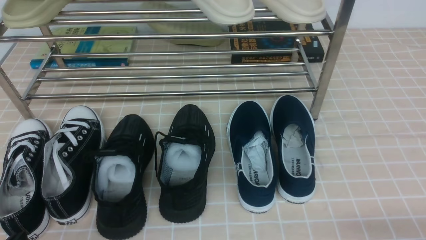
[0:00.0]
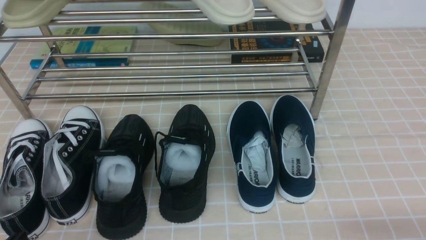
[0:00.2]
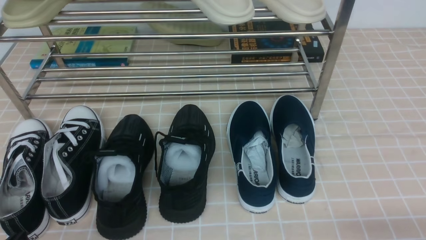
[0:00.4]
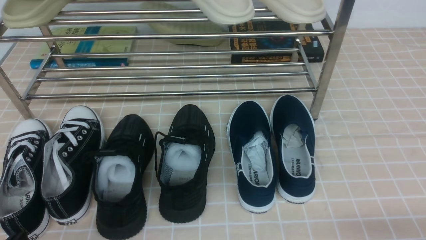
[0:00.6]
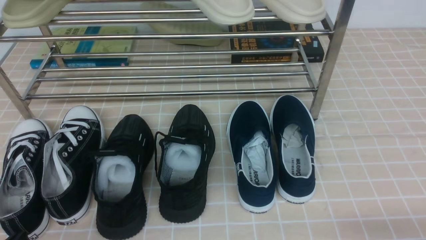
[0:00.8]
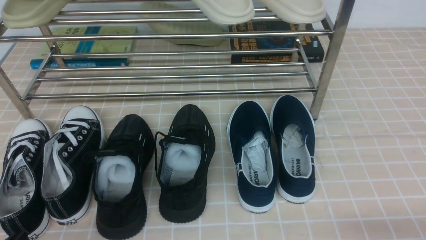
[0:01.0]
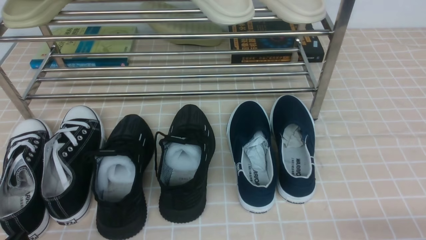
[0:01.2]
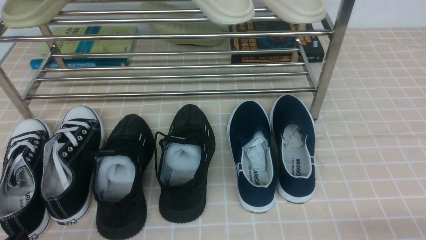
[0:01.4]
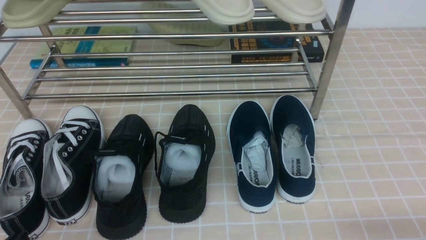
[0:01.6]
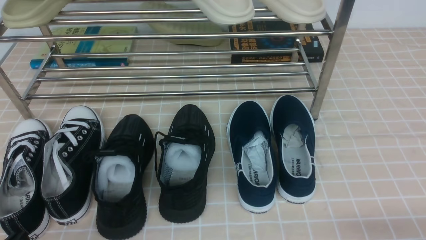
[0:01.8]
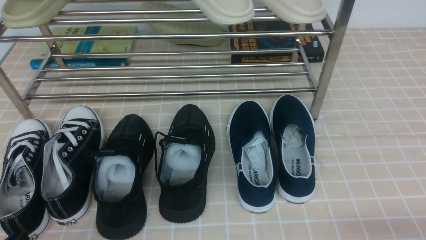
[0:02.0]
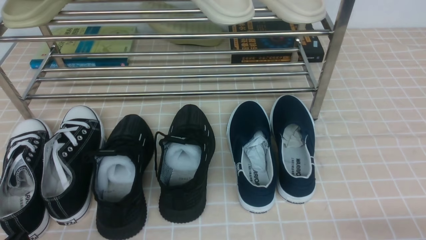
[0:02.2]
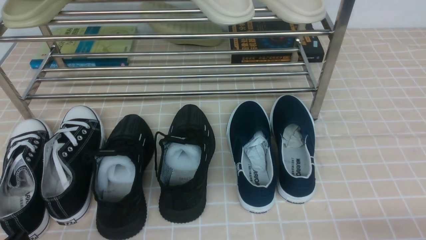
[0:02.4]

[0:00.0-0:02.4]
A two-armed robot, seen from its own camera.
0:00.0 to 0:02.4: The two grippers keep their place.

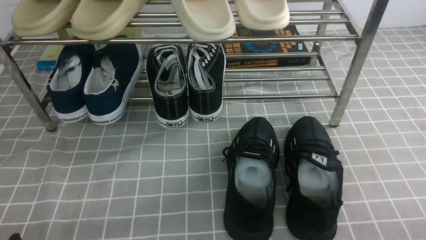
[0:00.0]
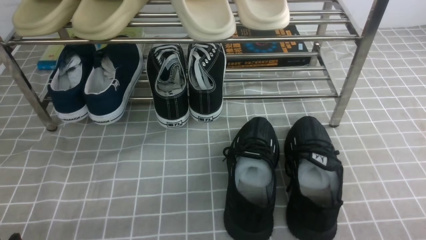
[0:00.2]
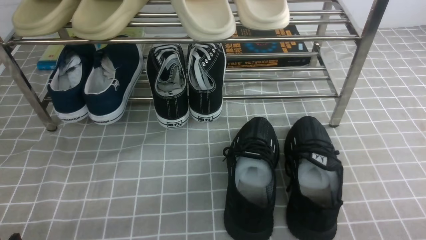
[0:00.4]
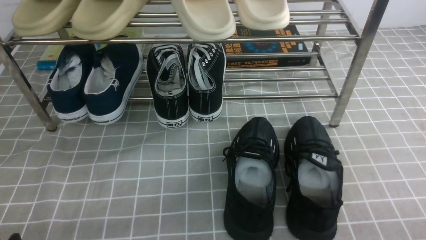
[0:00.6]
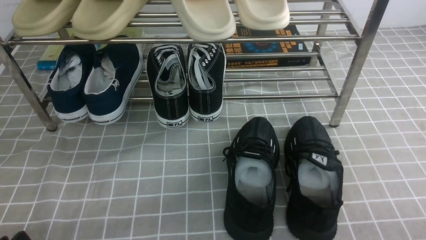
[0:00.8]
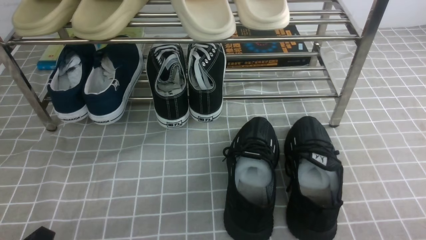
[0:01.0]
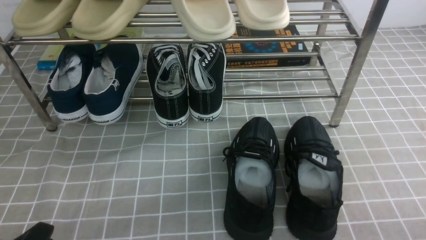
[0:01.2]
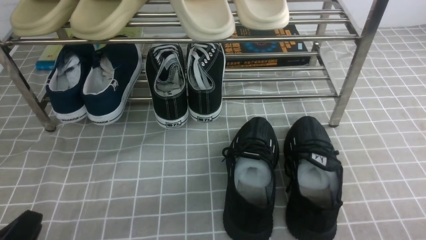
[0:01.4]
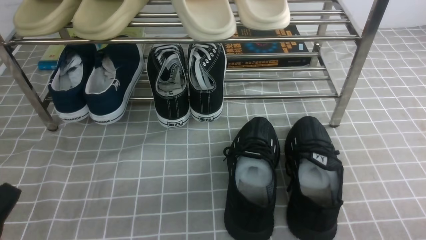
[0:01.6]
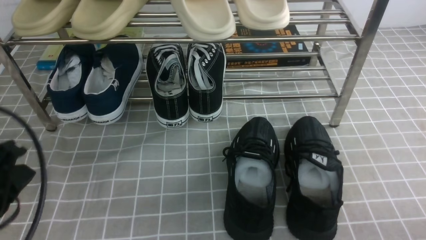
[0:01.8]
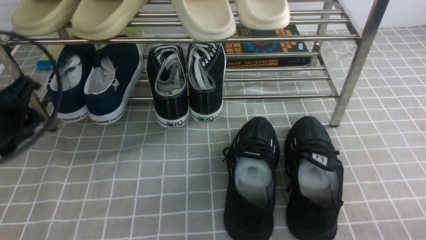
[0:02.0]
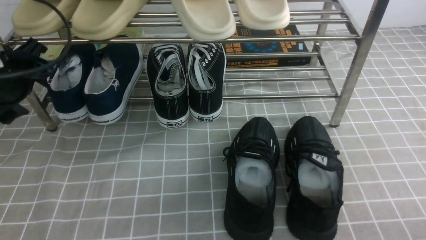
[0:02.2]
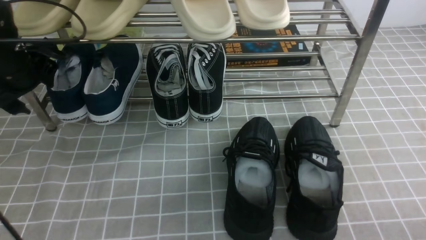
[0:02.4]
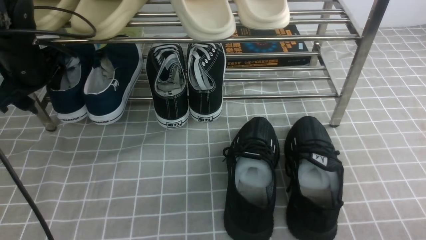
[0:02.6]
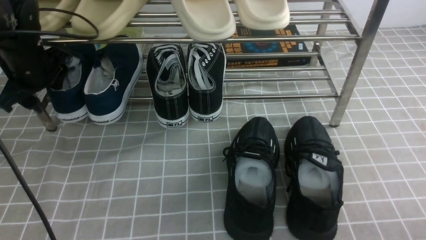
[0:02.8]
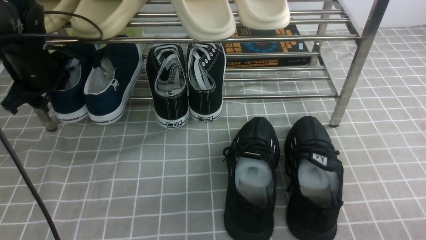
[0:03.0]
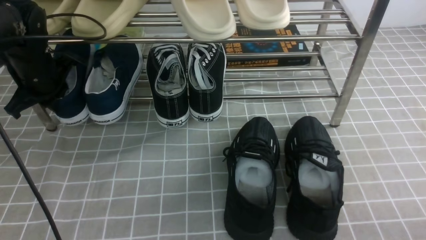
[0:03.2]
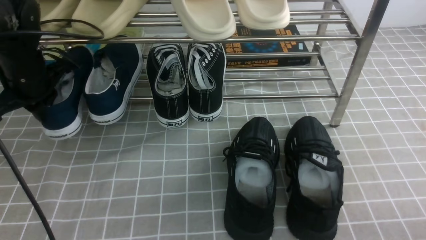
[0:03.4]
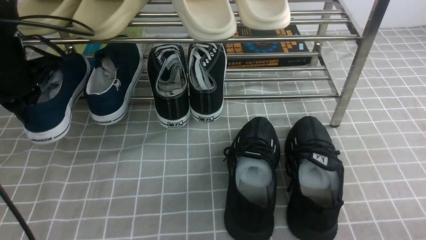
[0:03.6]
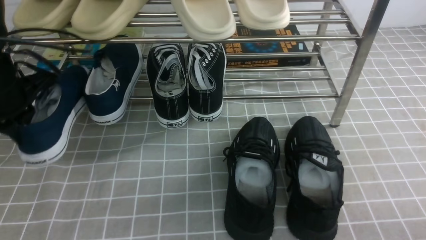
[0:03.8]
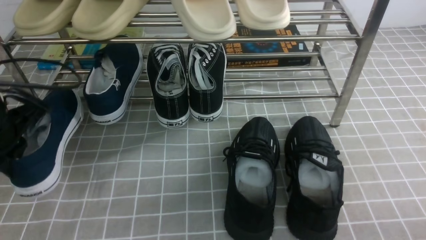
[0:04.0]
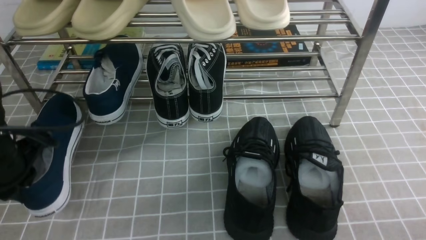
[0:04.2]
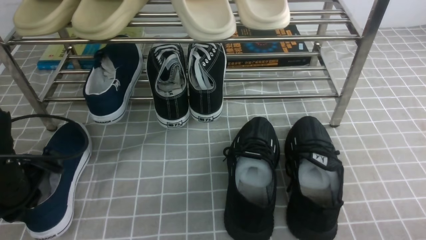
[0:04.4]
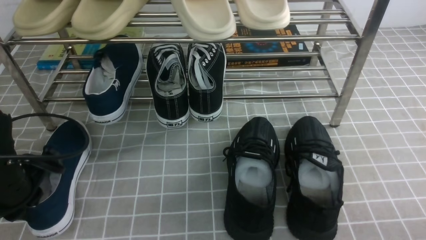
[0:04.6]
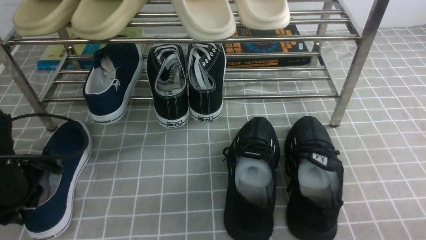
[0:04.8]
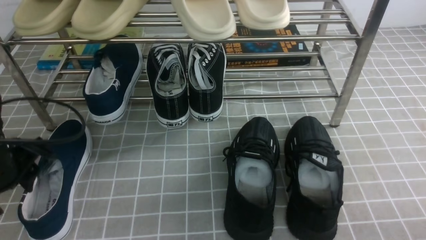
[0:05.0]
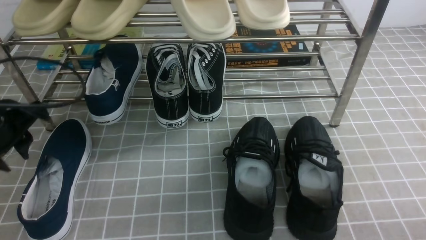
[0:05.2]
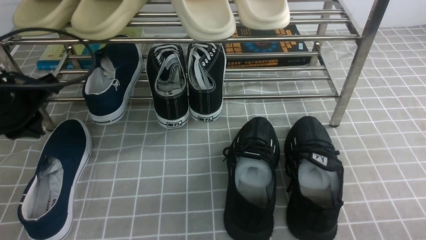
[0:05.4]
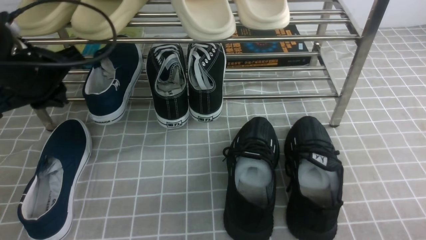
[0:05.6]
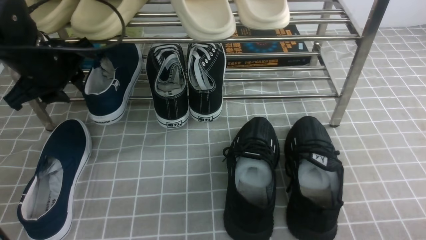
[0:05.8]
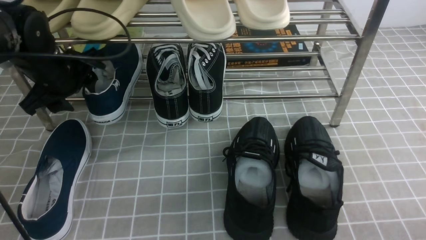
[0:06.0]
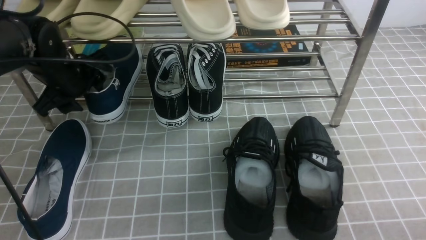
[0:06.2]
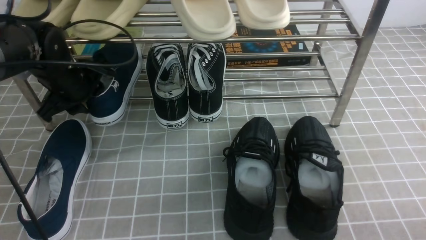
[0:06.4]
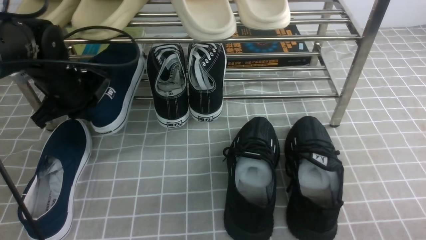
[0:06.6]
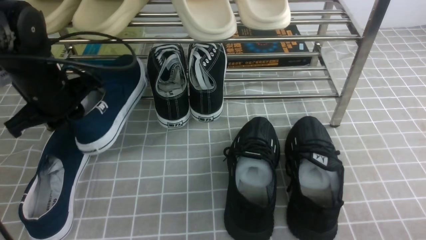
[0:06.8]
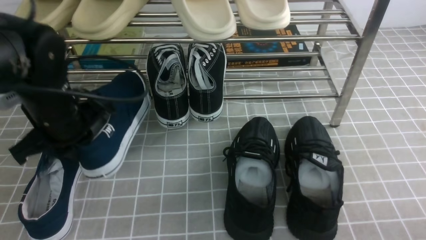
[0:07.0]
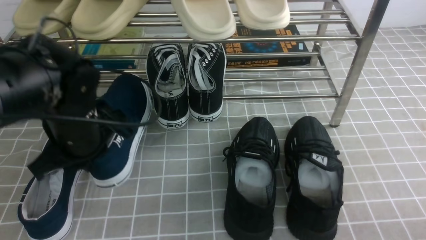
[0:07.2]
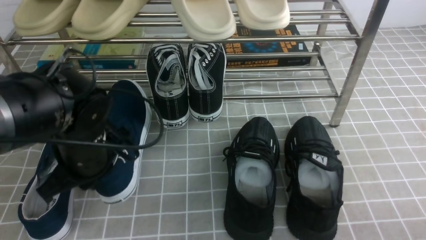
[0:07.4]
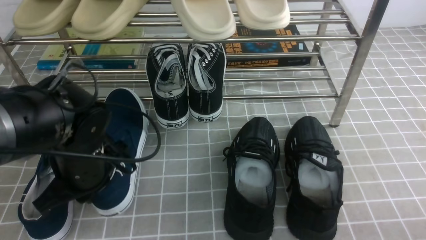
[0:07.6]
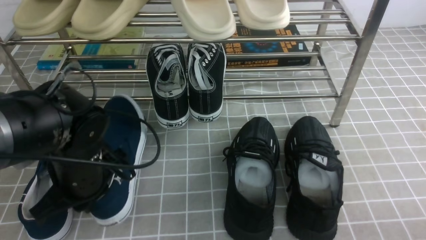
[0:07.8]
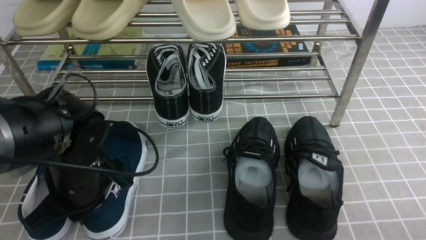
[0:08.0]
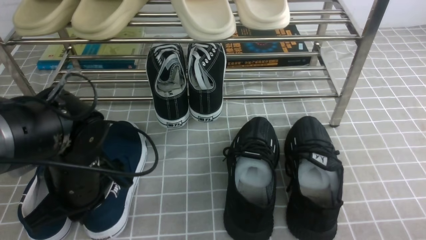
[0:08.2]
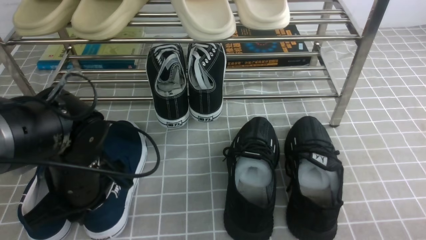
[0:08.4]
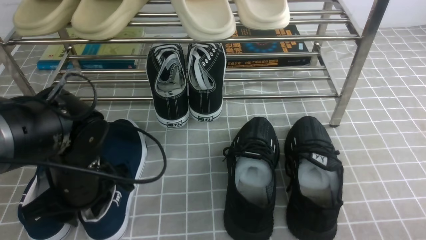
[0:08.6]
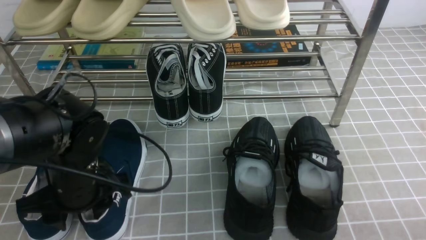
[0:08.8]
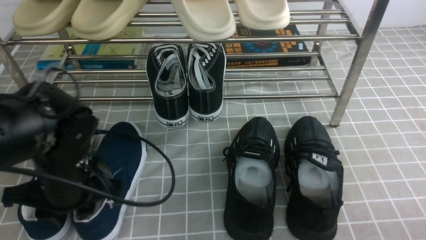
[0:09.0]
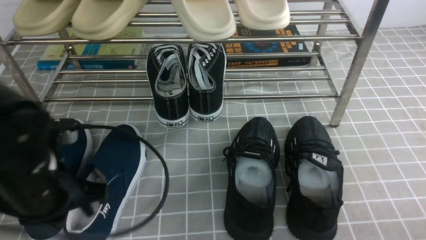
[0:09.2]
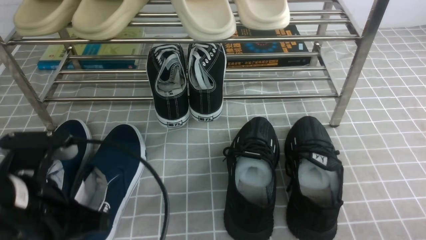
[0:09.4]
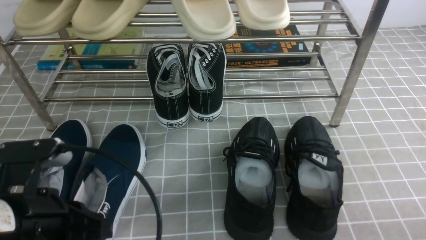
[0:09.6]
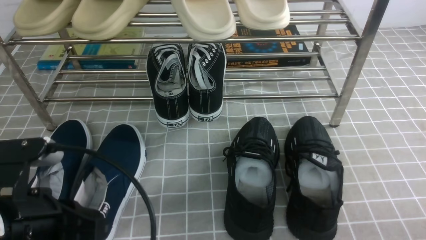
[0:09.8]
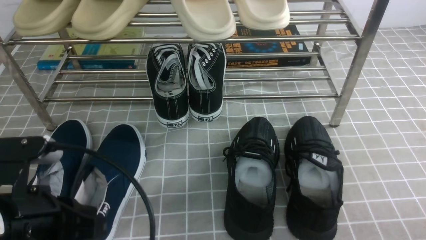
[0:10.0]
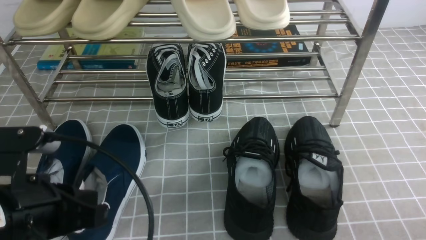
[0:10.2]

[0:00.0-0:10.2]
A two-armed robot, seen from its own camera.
Step, 0:00.0 to 0:03.0: use the left arm to clamp a shoe on the left side of the shoe rack.
Step, 0:03.2 to 0:05.0: Use your left arm to remove the clamped shoe from the shoe rack and put it down.
Step, 0:05.2 to 0:06.6: use the left arm to clamp a shoe on the left side of the shoe rack.
Step, 0:06.8 to 0:09.2: Use your left arm to remove the clamped shoe from the shoe rack and put it down.
0:01.4 to 0:03.0: The left gripper goes some 35 cm forward, and opens and closes again. The right gripper opens.
0:03.0 to 0:04.4: The left gripper shifts some 15 cm backward, and closes up.
0:04.4 to 0:05.8: The left gripper travels forward and upward by some 15 cm, and opens up.
0:05.8 to 0:07.2: The left gripper heads backward, downward and to the right, covering approximately 10 cm, and closes up.
0:07.2 to 0:08.8: The left gripper changes place by about 5 cm, and opens up.
0:08.8 to 0:10.2: The left gripper moves backward and upward, some 10 cm, and closes up.

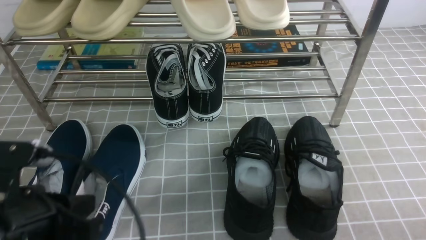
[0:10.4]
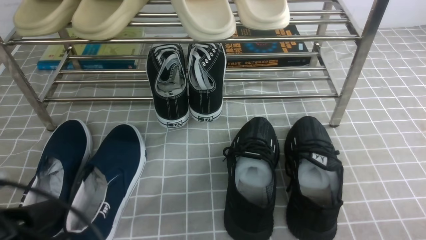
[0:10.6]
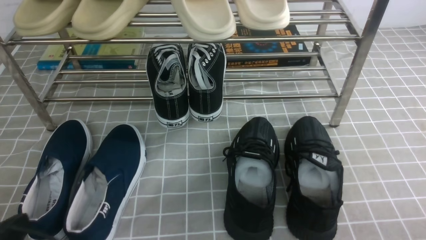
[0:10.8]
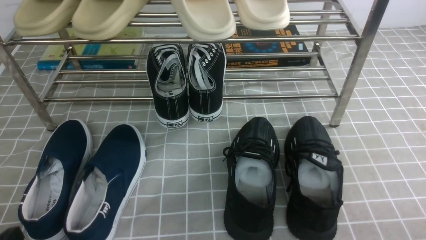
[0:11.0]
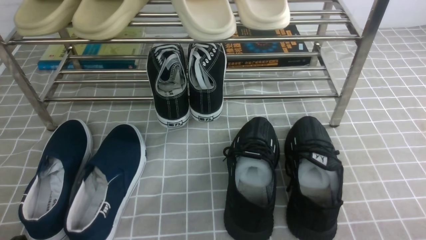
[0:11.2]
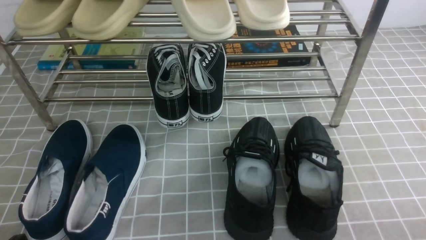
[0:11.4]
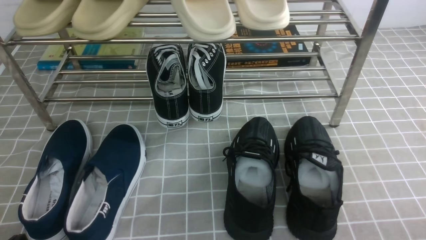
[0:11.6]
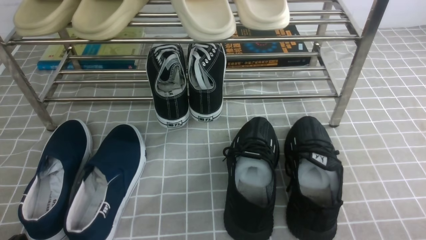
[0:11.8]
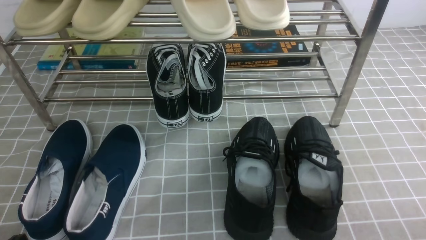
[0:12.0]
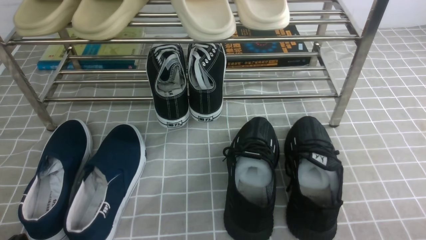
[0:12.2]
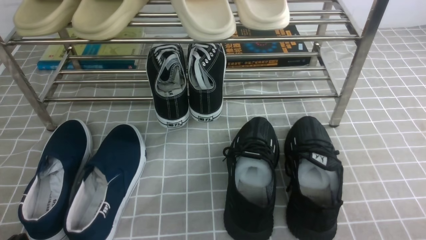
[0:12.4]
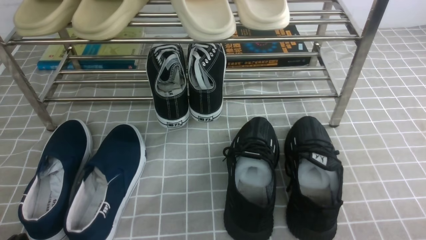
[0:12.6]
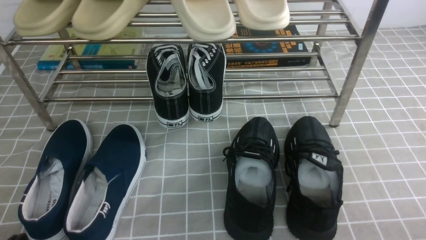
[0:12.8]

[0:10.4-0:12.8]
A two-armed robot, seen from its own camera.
0:10.4 to 0:11.6: The left gripper is displaced downward and backward by roughly 10 cm.
0:11.6 to 0:12.8: The two grippers keep their place.

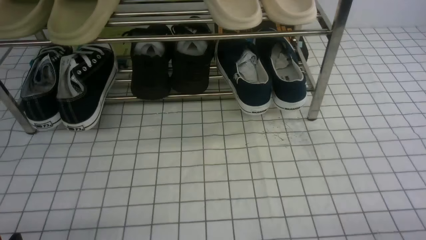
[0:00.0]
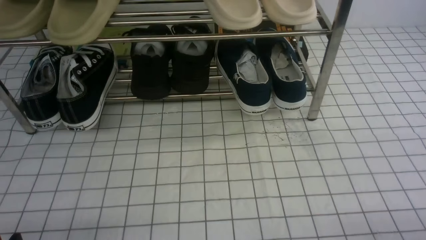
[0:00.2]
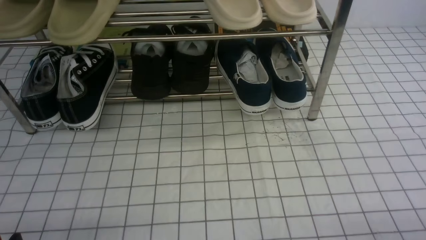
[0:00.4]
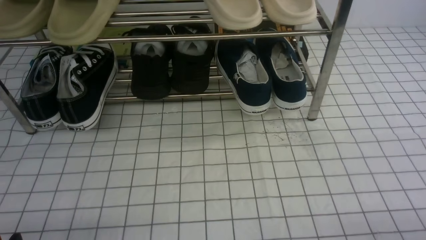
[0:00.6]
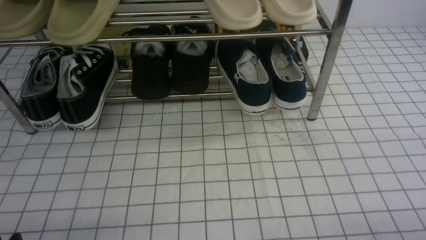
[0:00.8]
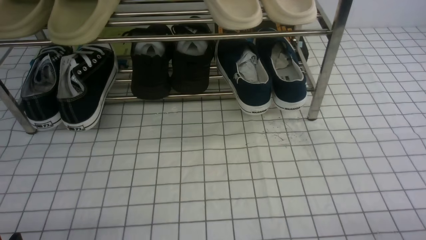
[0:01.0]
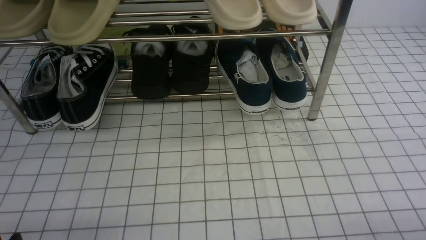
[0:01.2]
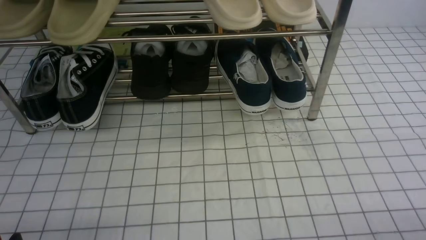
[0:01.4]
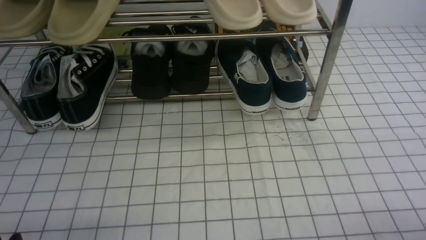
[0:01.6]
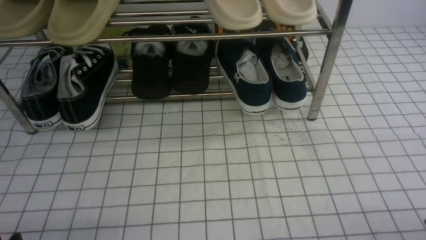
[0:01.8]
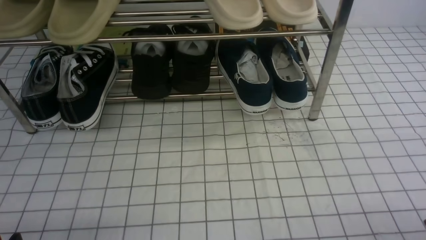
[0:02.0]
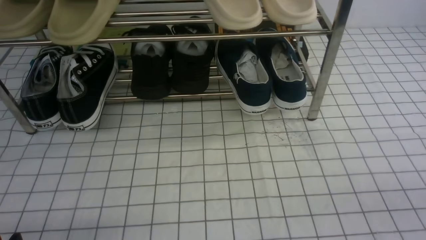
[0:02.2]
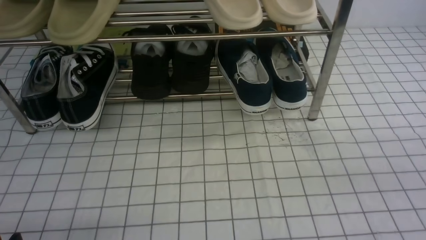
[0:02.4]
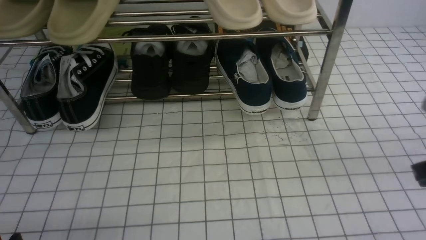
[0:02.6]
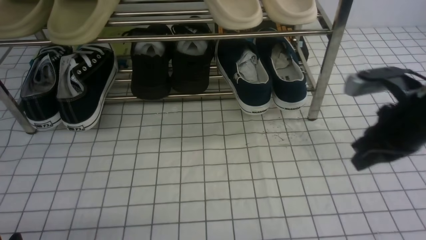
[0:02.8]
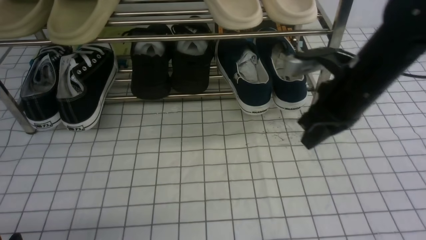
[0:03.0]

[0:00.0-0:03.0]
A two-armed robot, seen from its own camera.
0:01.6 to 0:03.0: The right gripper goes approximately 30 cm forward, to the left and upward, and closes.
